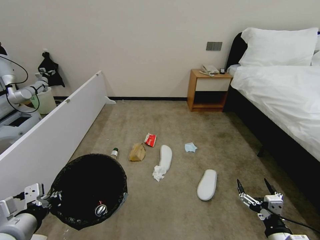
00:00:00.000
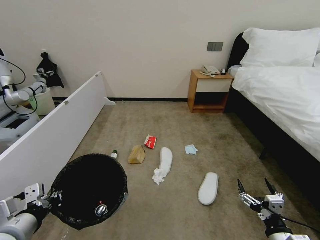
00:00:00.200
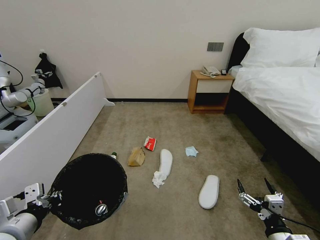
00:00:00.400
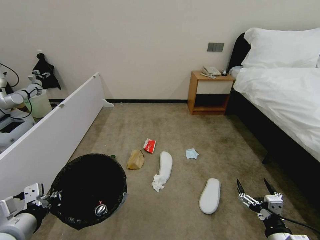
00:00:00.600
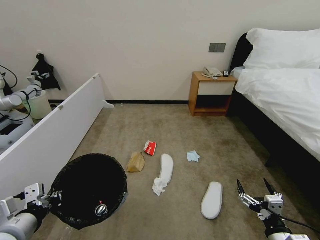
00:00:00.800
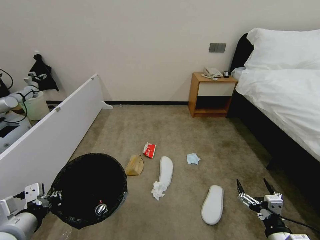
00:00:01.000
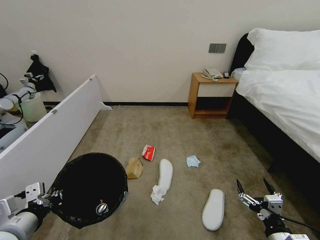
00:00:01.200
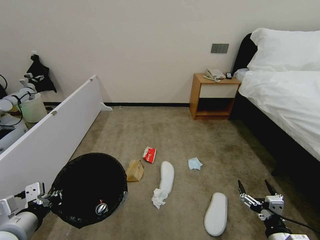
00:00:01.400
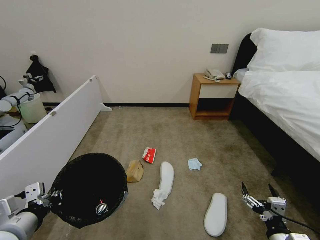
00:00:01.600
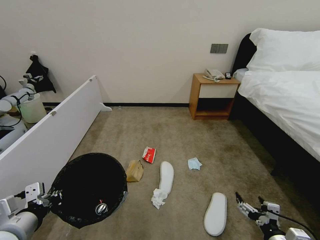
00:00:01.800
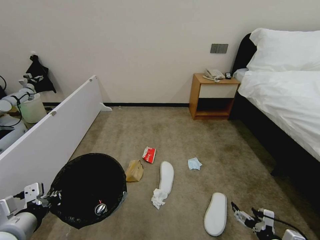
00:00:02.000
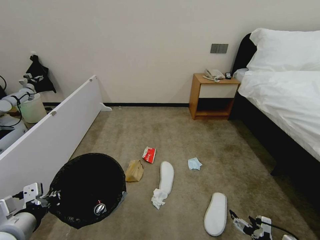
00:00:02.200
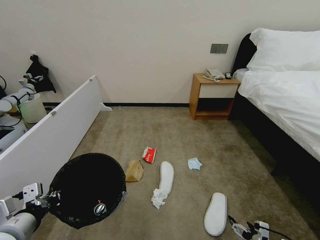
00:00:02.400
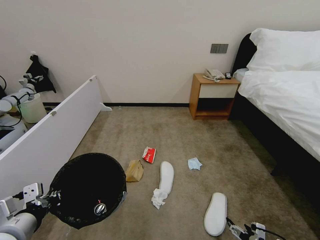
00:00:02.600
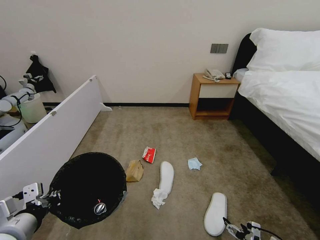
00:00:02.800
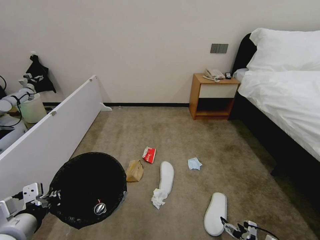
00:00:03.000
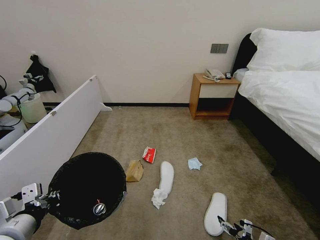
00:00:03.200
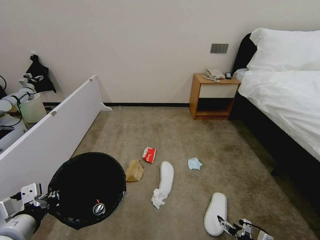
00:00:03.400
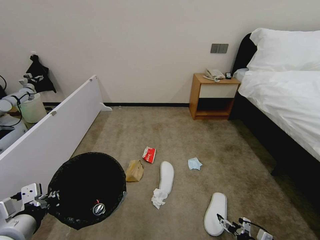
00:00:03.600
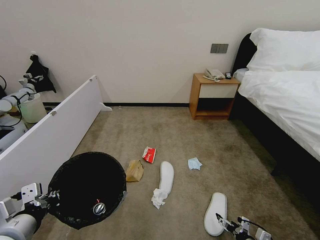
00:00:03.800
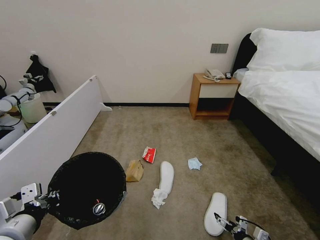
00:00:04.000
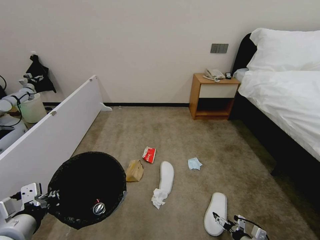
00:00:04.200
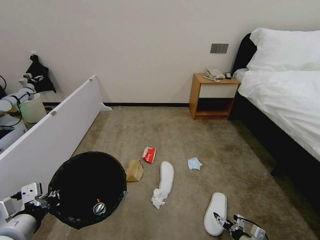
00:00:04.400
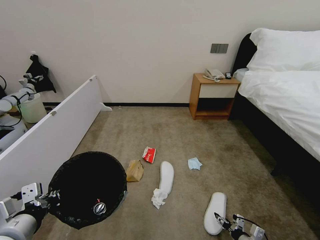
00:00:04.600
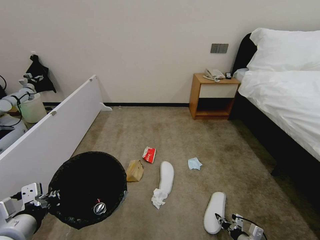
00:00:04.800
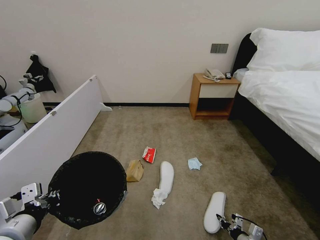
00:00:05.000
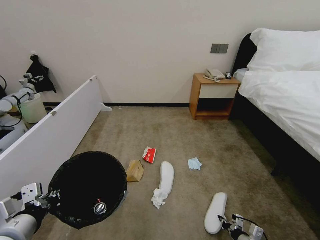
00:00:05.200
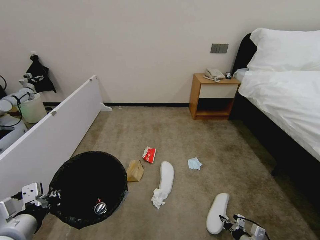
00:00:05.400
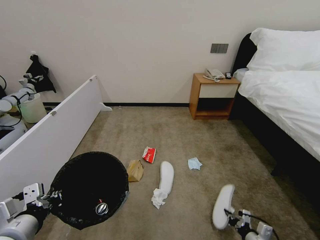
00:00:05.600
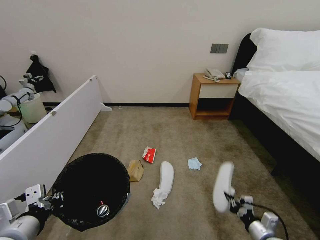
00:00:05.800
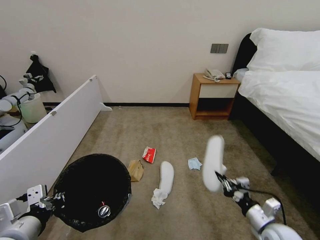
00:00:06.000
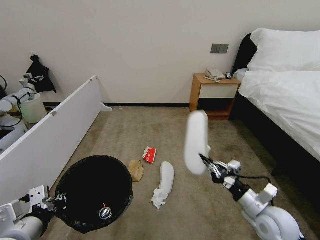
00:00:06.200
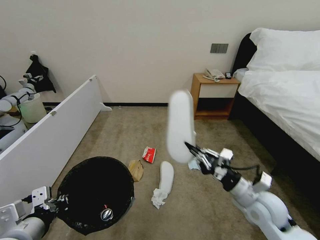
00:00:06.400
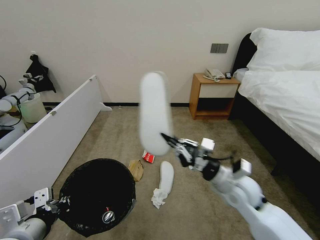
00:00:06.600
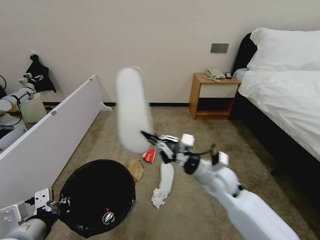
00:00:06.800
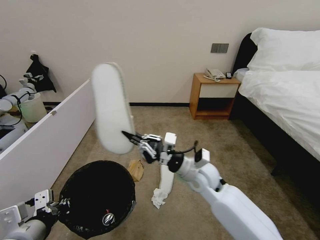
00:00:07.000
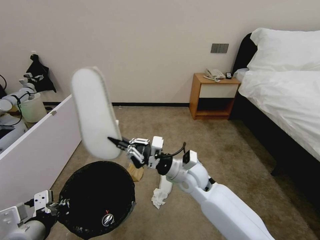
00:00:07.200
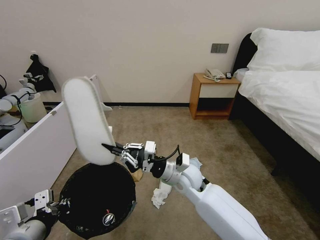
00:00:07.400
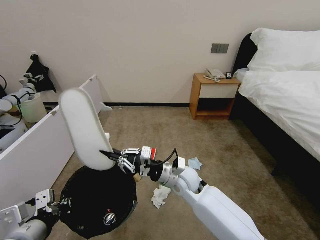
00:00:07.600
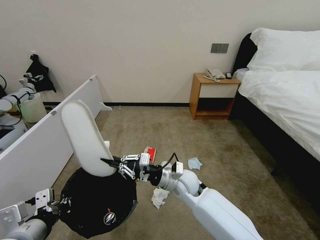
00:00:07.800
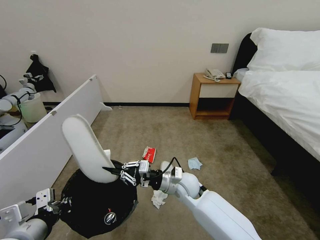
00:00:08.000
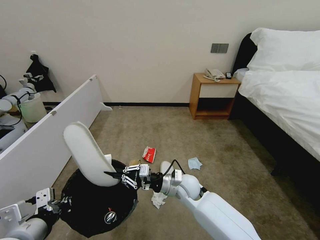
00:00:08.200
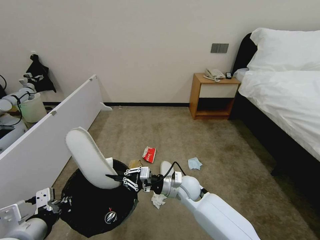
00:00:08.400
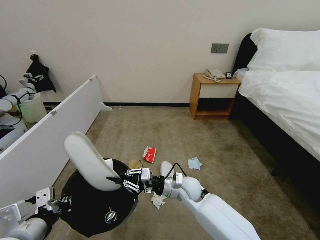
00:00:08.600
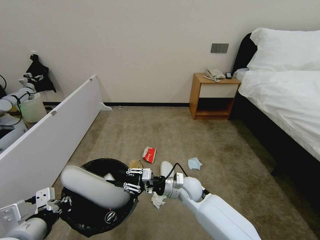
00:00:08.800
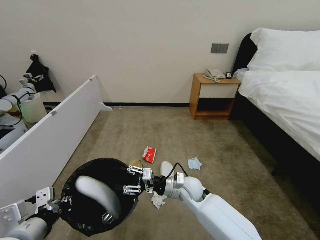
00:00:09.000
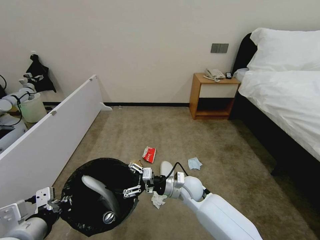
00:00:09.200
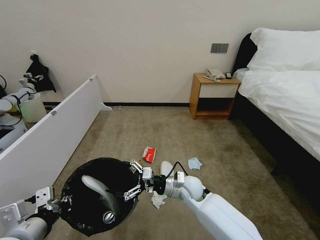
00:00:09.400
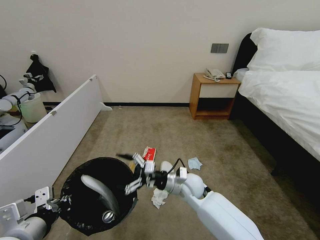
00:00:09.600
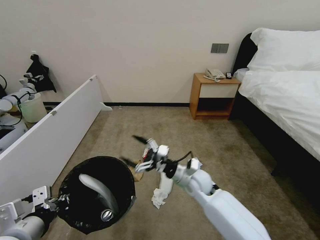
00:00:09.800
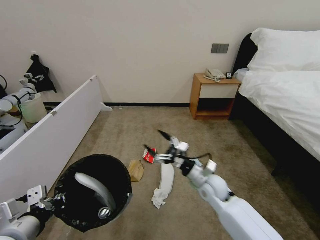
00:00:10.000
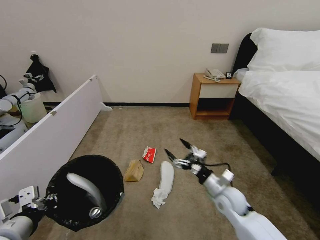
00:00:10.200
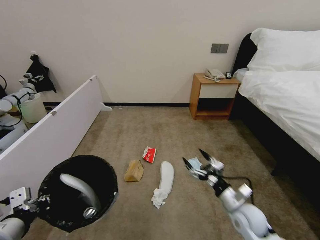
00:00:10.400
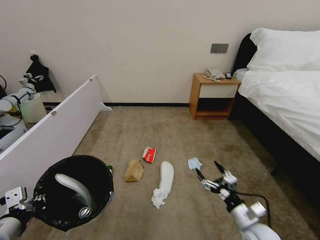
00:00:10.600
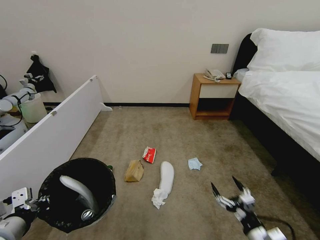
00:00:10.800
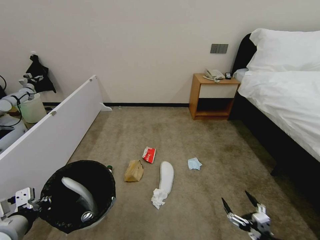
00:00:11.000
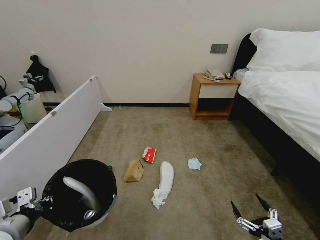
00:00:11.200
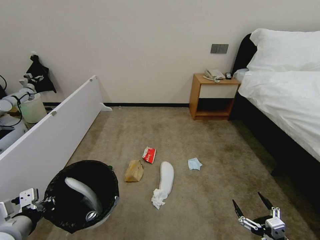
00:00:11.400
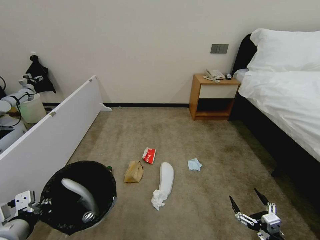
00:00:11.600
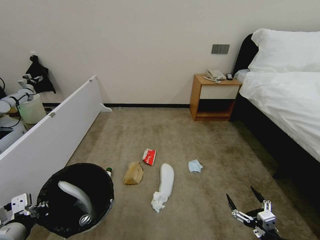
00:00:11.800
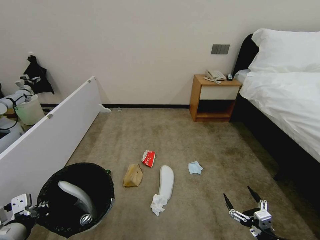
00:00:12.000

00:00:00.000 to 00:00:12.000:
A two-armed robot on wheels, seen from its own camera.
Task of the whole recording: Pick up the trash bin, then pick up the garbage from the floor and place it into the trash bin.
00:00:00.000 to 00:00:01.600: The two grippers keep their place.
00:00:01.600 to 00:00:03.000: The right gripper goes some 10 cm downward.
00:00:03.000 to 00:00:04.400: The right gripper ends up roughly 5 cm from where it was.
00:00:04.400 to 00:00:06.000: The right gripper is displaced upward by roughly 15 cm, and closes its fingers.
00:00:06.000 to 00:00:07.600: The right gripper travels to the left and forward by roughly 30 cm.
00:00:07.600 to 00:00:09.000: The right gripper shifts some 5 cm downward, and opens up.
00:00:09.000 to 00:00:10.400: The right gripper goes some 20 cm to the right and backward, and opens up.
00:00:10.400 to 00:00:12.000: The right gripper shifts about 15 cm backward and to the right.

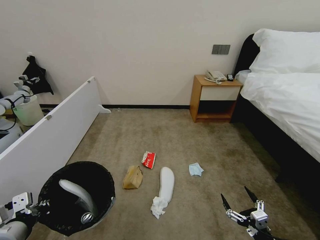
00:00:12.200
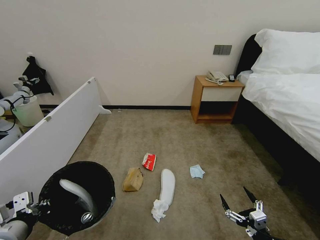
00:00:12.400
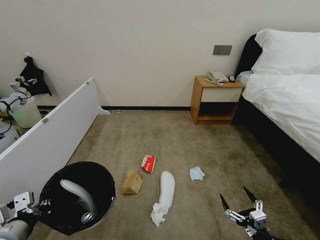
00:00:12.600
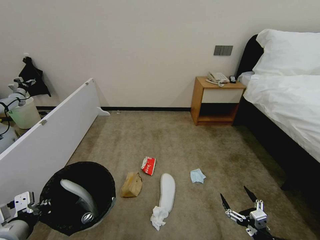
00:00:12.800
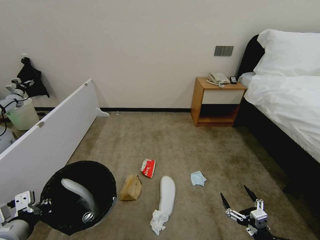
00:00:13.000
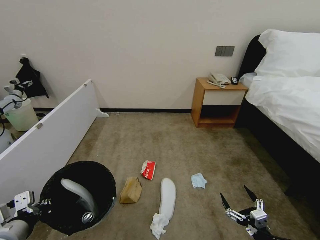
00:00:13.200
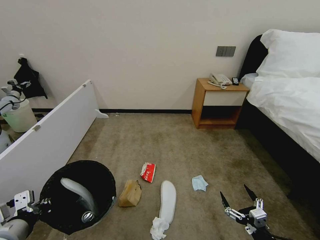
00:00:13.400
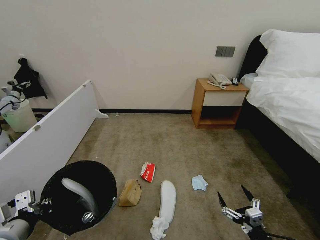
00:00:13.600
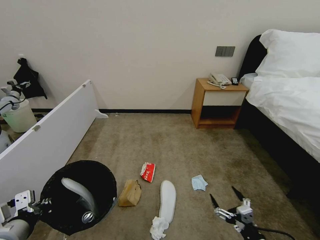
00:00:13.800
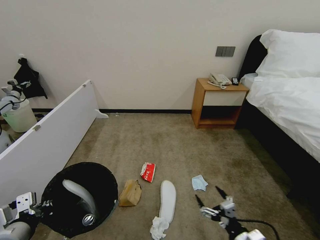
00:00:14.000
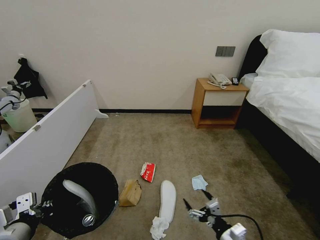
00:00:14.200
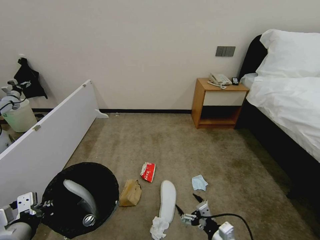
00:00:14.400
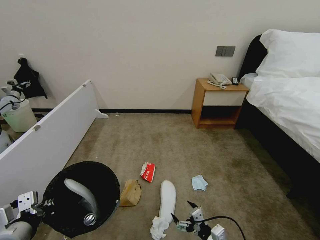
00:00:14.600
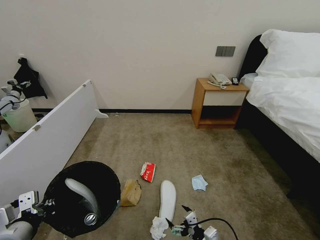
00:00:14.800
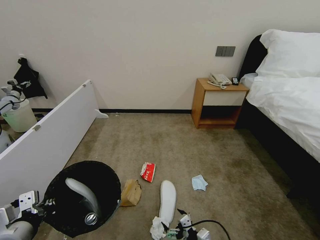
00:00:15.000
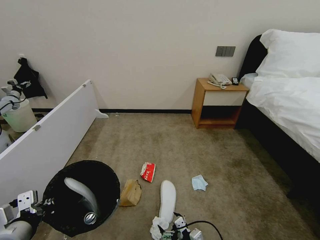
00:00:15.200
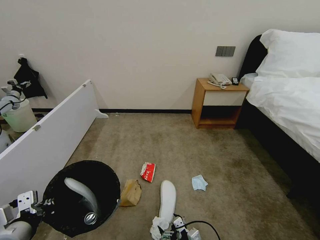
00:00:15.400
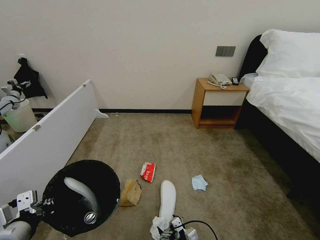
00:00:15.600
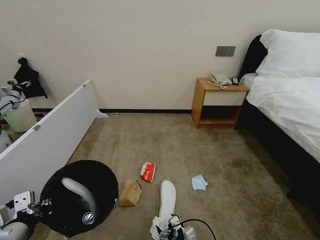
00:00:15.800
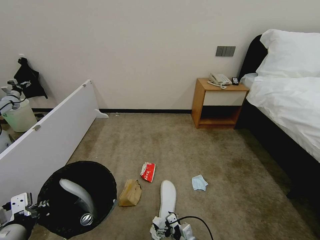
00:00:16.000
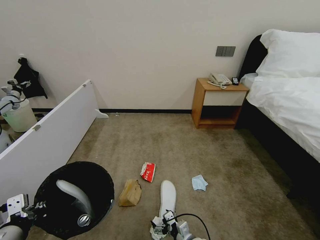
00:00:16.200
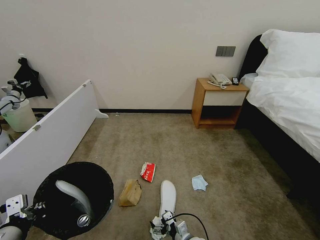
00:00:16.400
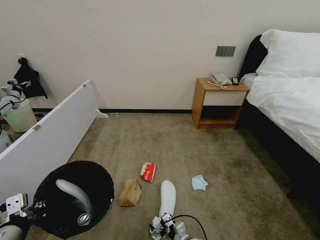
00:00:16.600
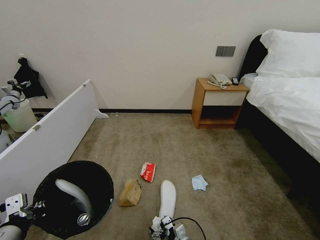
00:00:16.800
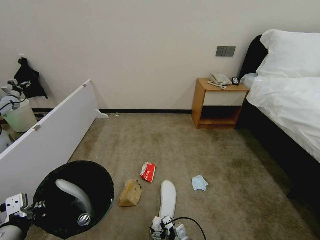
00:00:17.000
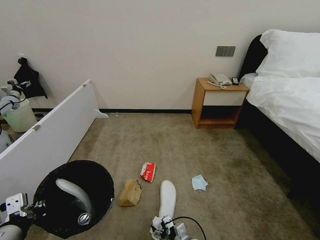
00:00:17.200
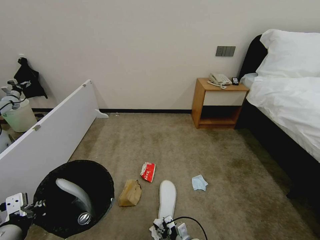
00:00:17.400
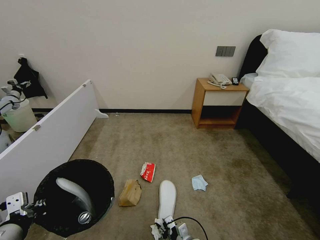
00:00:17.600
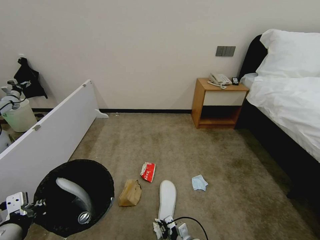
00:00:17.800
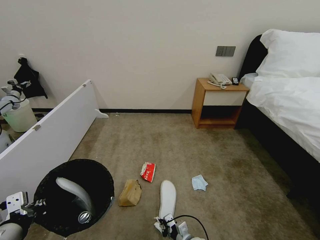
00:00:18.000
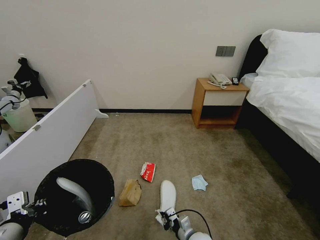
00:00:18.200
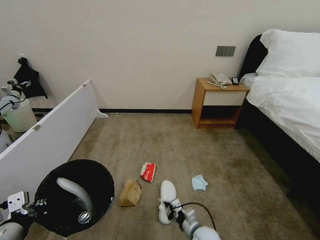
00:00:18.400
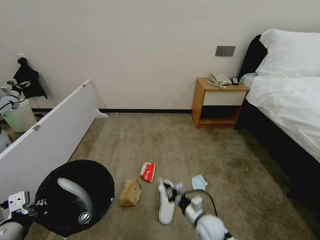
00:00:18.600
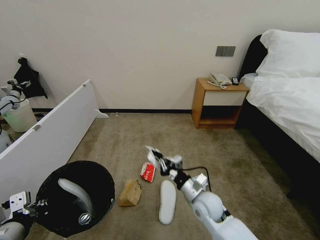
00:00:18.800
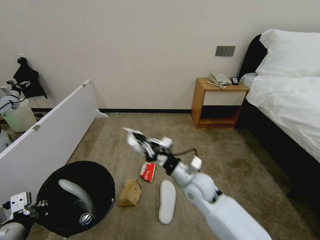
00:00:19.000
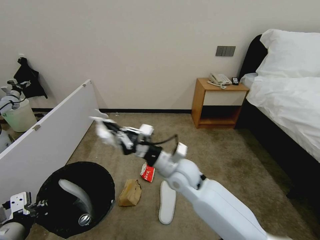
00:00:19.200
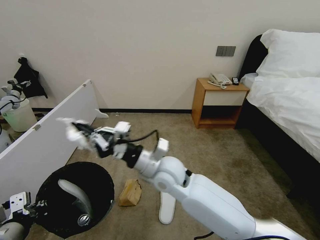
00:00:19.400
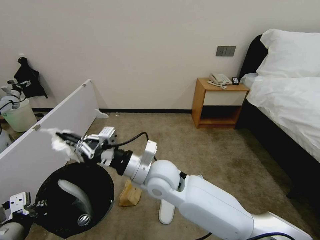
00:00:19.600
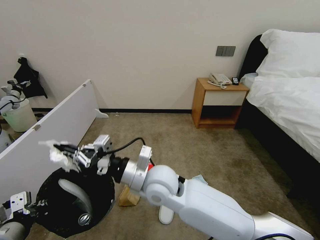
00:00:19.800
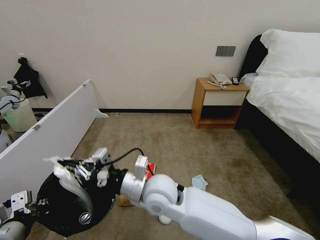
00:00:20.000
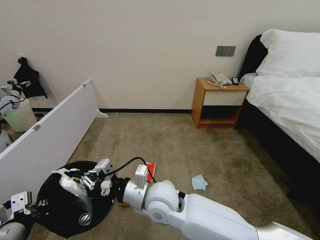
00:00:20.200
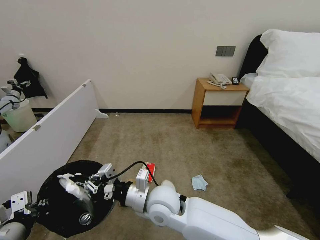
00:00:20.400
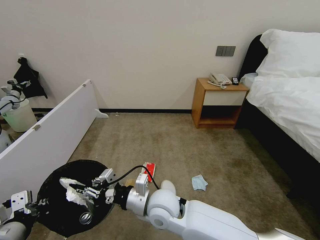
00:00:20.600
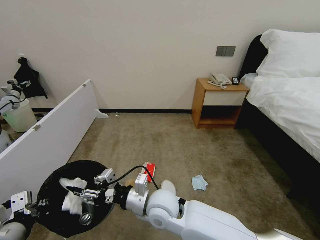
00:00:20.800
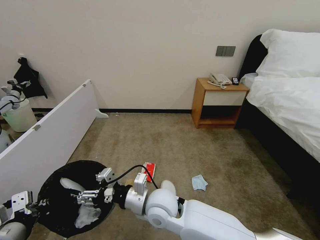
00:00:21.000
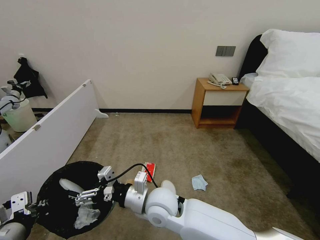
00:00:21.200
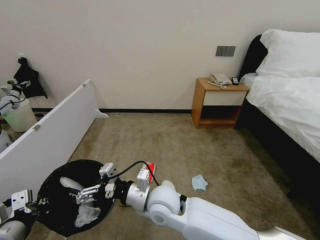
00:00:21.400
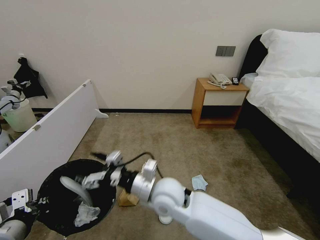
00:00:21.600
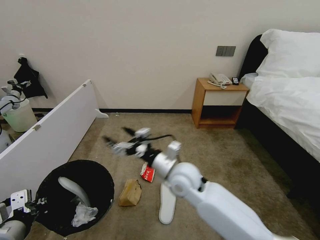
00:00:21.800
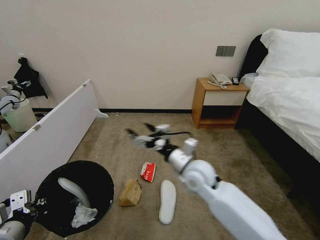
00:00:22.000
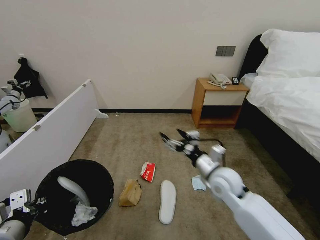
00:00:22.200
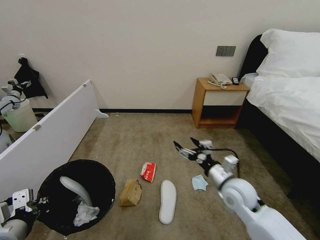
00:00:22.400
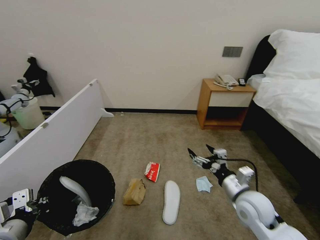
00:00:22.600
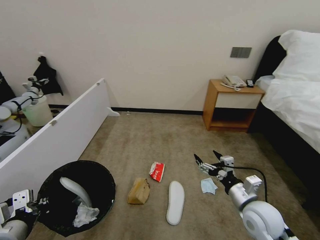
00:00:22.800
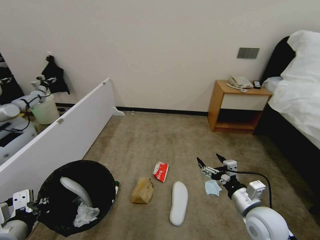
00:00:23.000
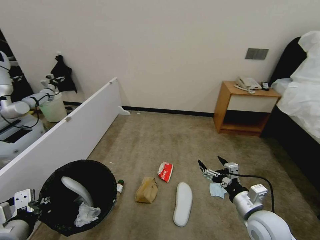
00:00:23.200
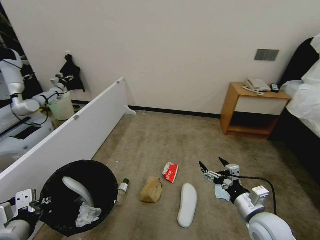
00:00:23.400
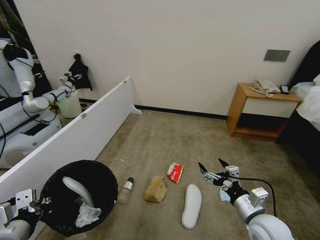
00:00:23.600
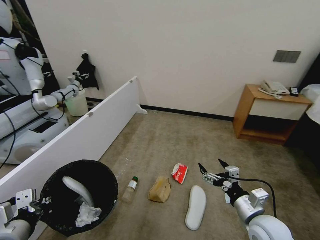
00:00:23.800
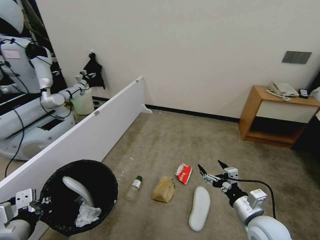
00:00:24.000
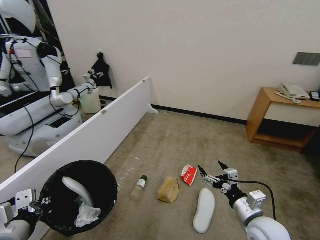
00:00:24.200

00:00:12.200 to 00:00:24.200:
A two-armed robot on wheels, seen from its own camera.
Task of the whole recording: Pick up the trash bin, then pick up the garbage from the floor and place it into the trash bin.
00:00:12.200 to 00:00:13.800: The grippers move only a little.
00:00:13.800 to 00:00:15.200: The right gripper moves to the left, downward and forward, some 20 cm.
00:00:15.200 to 00:00:16.600: The right gripper is displaced to the left by some 5 cm.
00:00:16.600 to 00:00:18.200: The right gripper closes its fingers.
00:00:18.200 to 00:00:19.800: The right gripper shifts approximately 40 cm upward and to the left.
00:00:19.800 to 00:00:21.200: The right gripper heads downward, covering roughly 5 cm, and opens up.
00:00:21.200 to 00:00:22.600: The right gripper moves to the right, roughly 25 cm.
00:00:22.600 to 00:00:24.200: The right gripper travels backward by some 5 cm.
